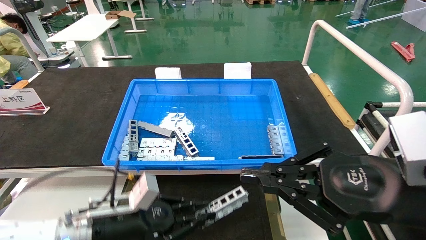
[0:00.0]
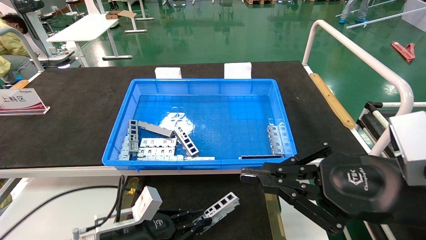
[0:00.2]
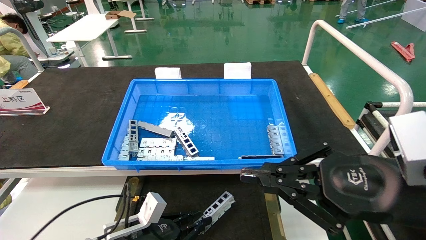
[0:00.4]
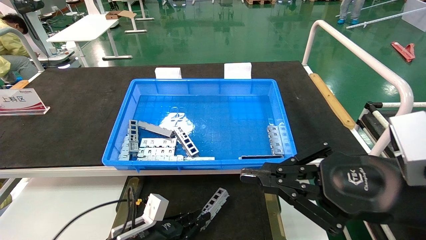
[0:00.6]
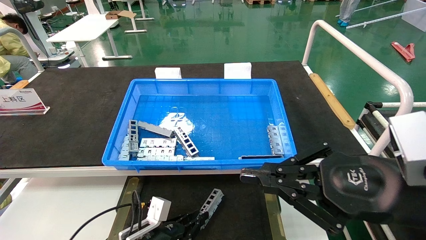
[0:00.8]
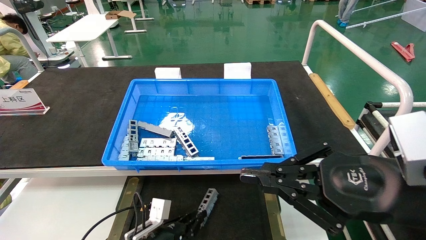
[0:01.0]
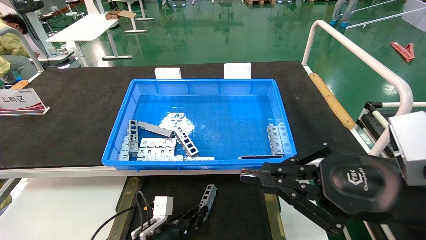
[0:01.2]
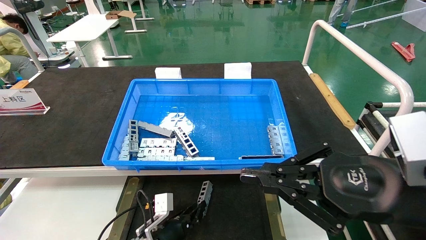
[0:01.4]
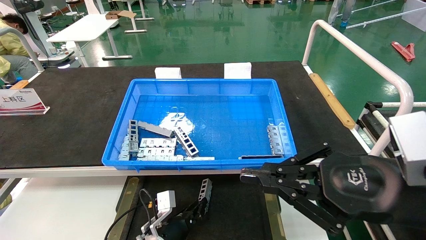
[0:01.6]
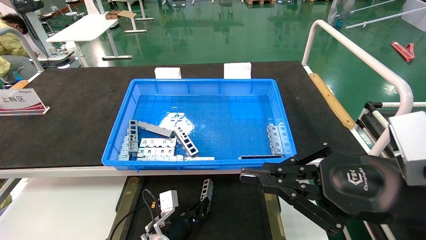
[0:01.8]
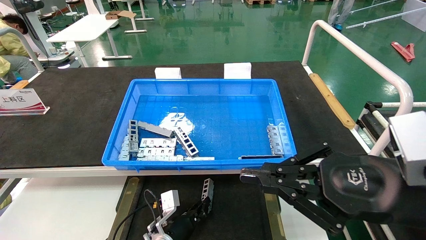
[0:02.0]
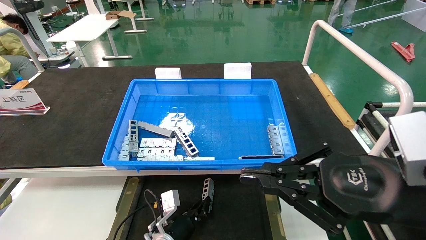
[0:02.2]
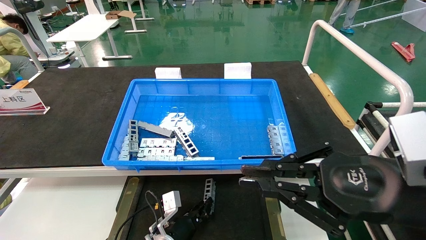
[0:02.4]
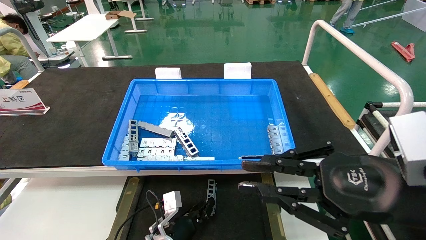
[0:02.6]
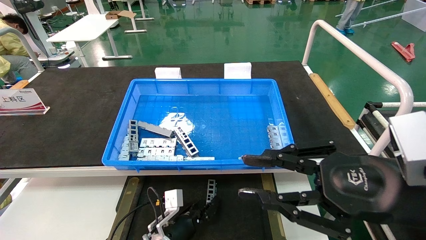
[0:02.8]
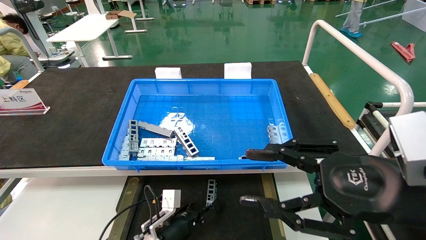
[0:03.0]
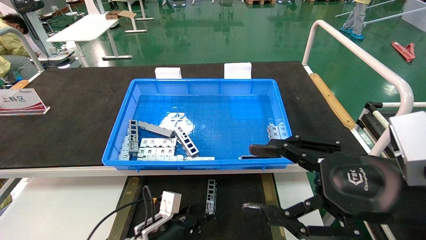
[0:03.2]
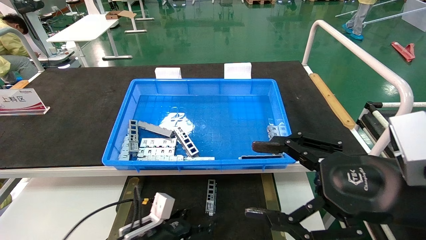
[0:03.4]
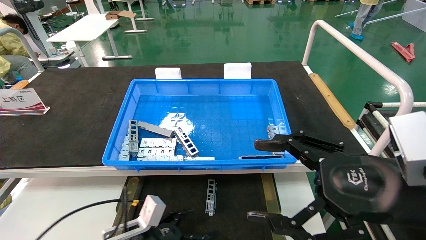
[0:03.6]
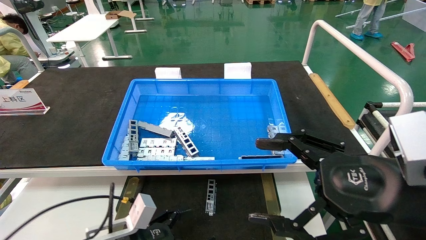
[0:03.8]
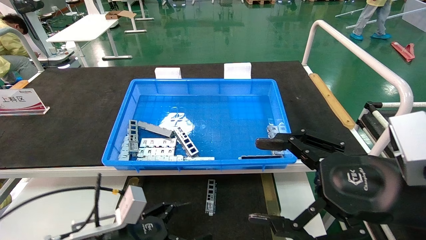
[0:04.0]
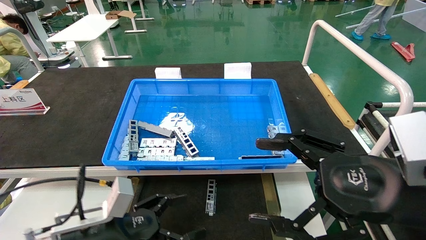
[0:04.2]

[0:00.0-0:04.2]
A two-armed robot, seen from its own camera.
Task of the whole recording: Grasp the part with one hand and place it on the black container.
Step, 0:00.0 to 0:02.6: Place the front USB bracket into the box.
0:00.0 to 0:01.4: The left gripper shifts roughly 15 cm downward, to the right and forward.
0:01.4 to 0:02.8: The grippers stay close to where they were, moving slightly.
0:02.8 to 0:04.2: The left gripper travels upward, backward and to the left by approximately 20 cm, and opens up, while the right gripper opens.
